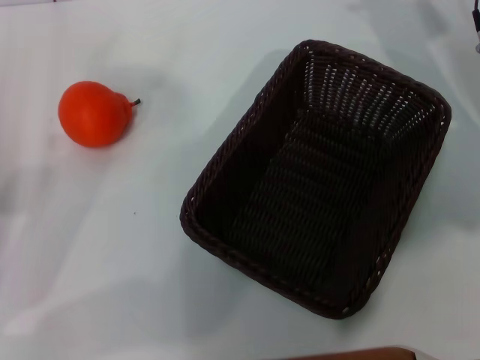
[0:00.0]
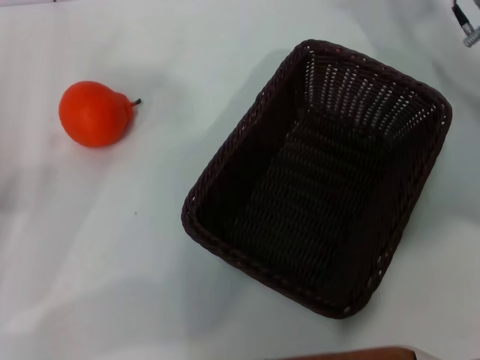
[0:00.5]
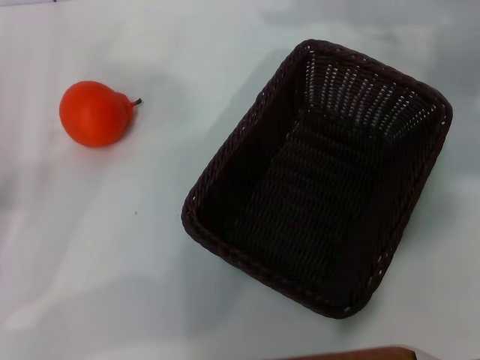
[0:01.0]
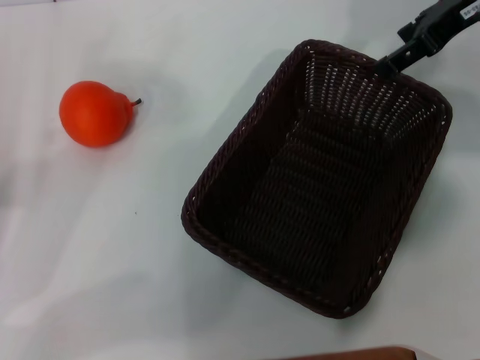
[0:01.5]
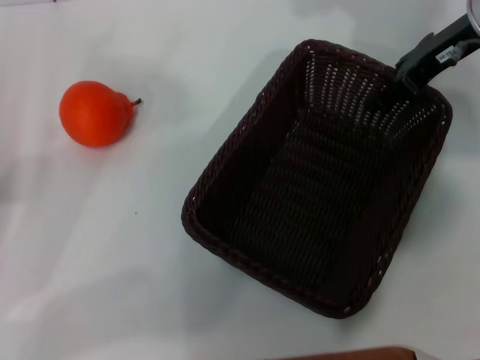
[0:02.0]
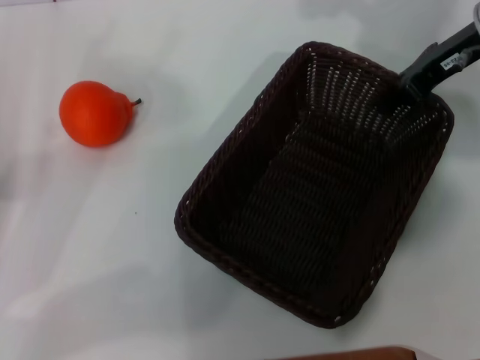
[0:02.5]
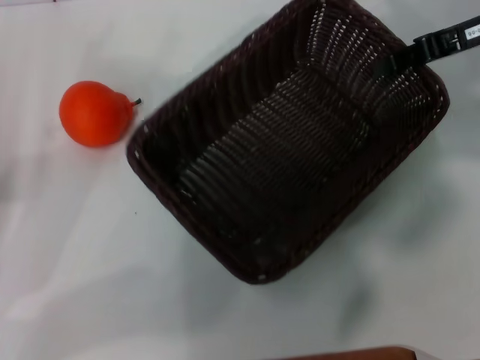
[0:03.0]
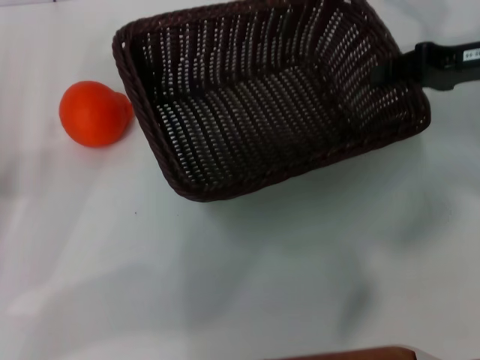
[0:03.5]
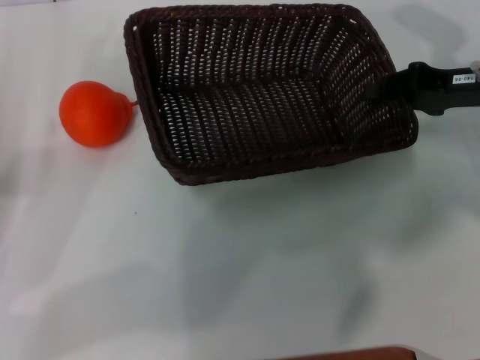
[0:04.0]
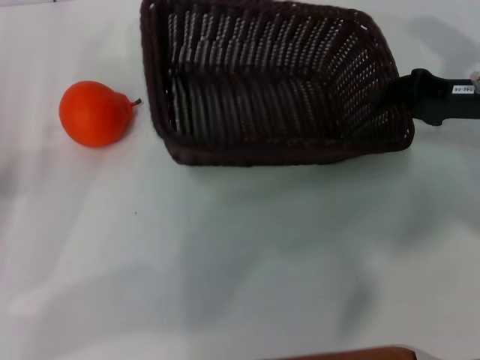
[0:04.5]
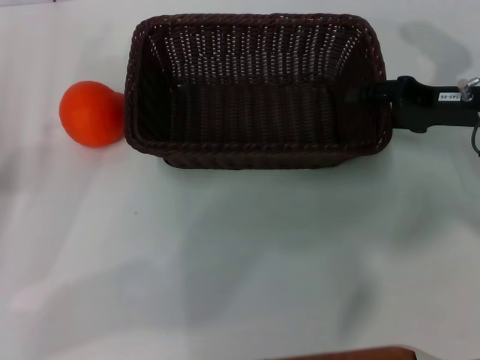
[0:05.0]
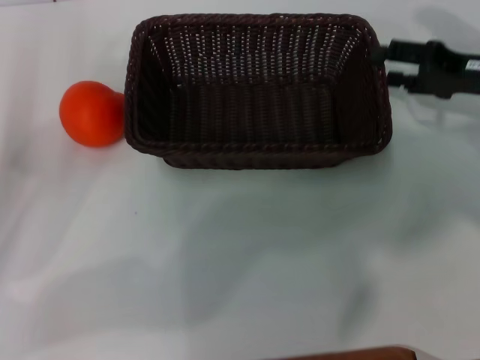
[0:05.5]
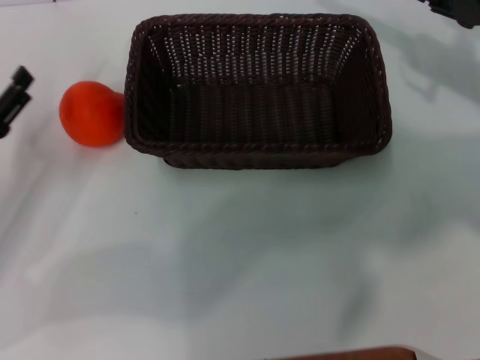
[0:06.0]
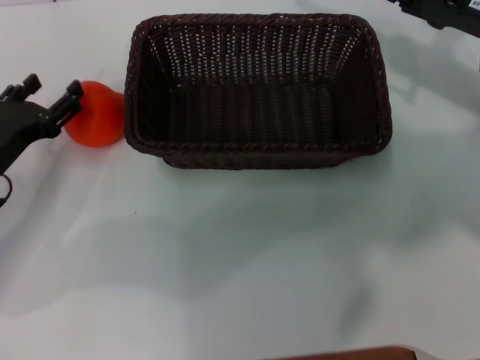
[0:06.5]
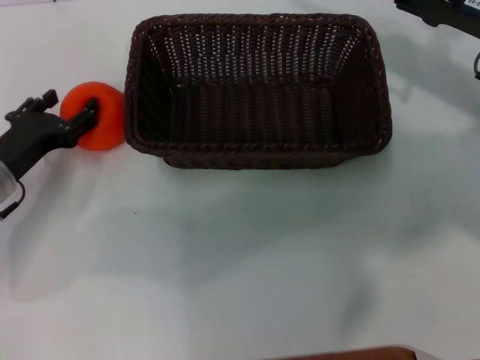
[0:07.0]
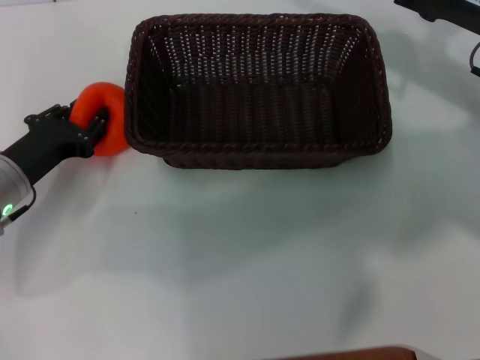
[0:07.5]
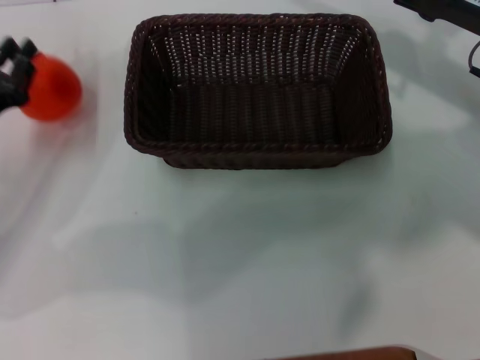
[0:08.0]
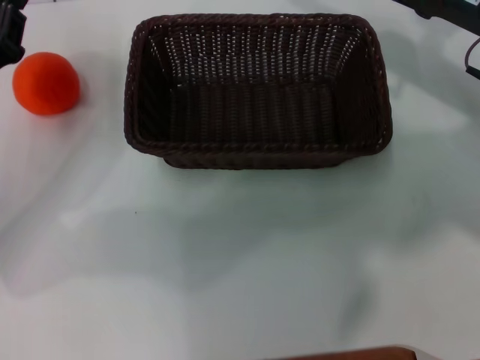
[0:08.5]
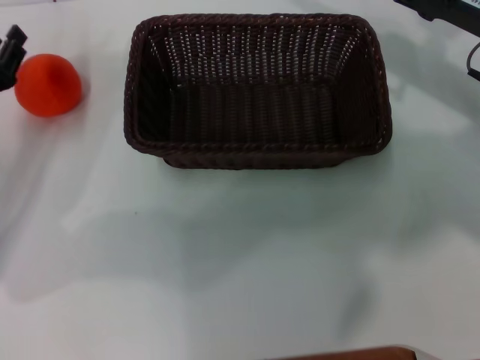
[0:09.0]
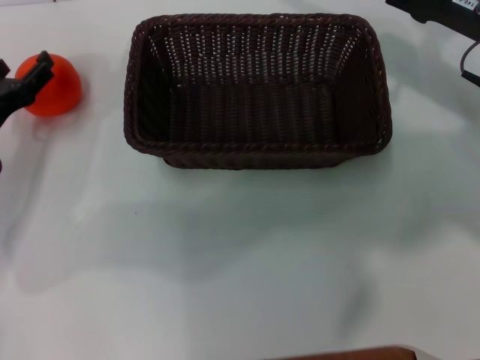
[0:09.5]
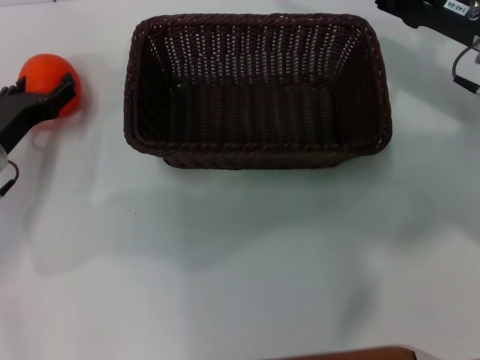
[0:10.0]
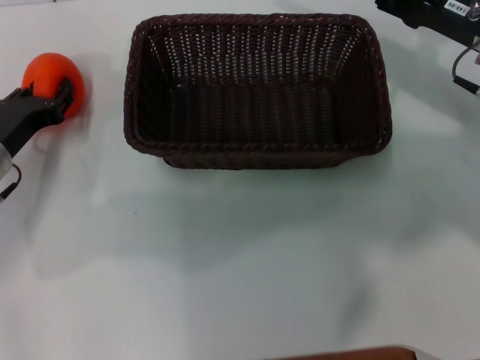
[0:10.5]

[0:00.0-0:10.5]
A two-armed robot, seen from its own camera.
Task of the whole recording: the right gripper pick up the black basket and place it horizontally in the middle of the table, the left gripper pick up the orange and place it into the black basket.
Step, 0:00.0 to 0:02.5: Pick up the dark basket with the right gripper.
Step, 0:03.0 to 0:05.0: Place the dark basket in the center of view with the right gripper.
0:00.0 to 0:02.0: The right gripper travels upward by about 5 cm.
0:02.0 to 0:04.0: The right gripper moves downward, backward and to the right, some 10 cm, and closes up.
0:04.0 to 0:06.5: The left gripper travels forward by roughly 5 cm. The right gripper opens up.
0:06.5 to 0:08.5: The left gripper ends up approximately 5 cm from where it was, and closes.
0:08.5 to 0:10.5: The left gripper shifts some 5 cm downward, and opens up.

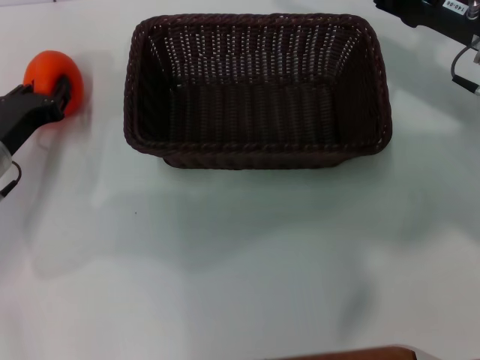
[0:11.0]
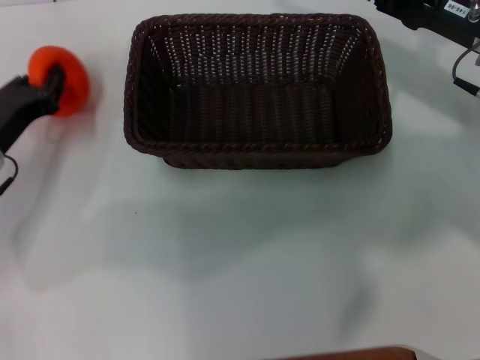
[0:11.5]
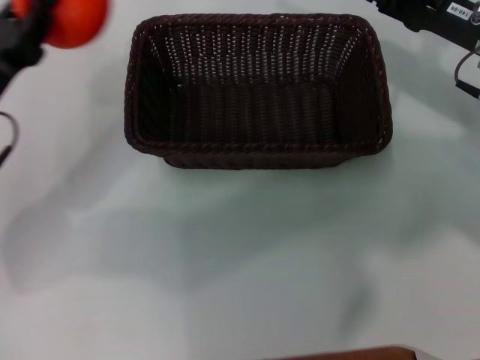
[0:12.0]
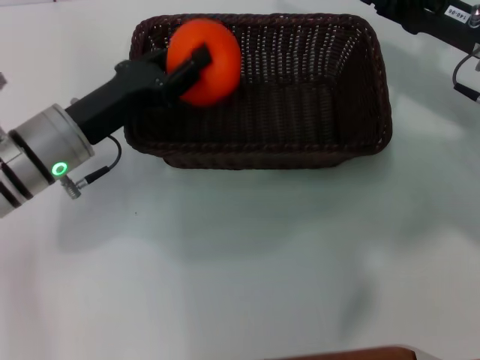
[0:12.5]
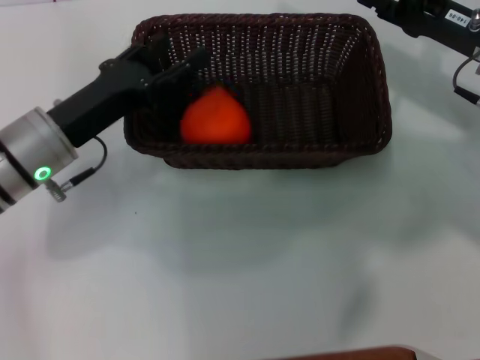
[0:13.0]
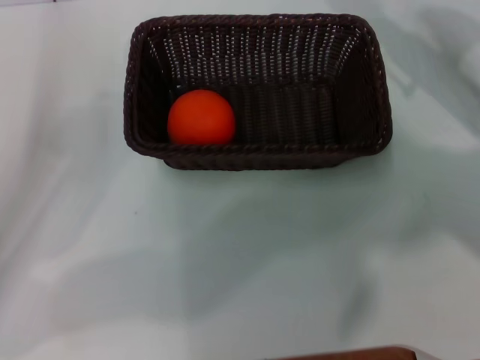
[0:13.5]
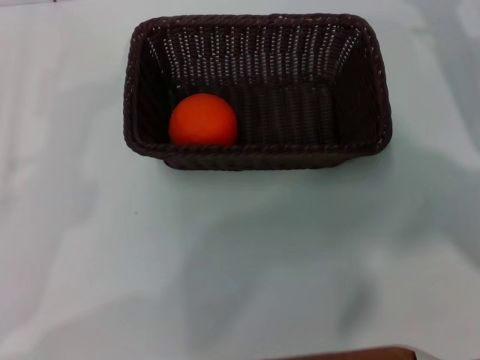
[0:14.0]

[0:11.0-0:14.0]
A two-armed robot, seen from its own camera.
Task of the whole recording: the right gripper pick up the black basket and place it horizontally in the middle of the table, the left gripper pick up the orange and place it into the black basket.
Step, 0:11.5 to 0:12.5: Place the orange into the dark basket with the left gripper.
0:11.0 to 0:12.5: The left gripper shifts approximately 10 cm to the right.
0:12.5 to 0:14.0: The right gripper travels to the right by roughly 5 cm. The left gripper shifts about 20 cm to the left and backward, and opens its fingers.
